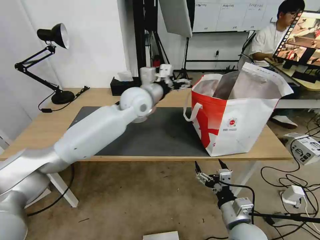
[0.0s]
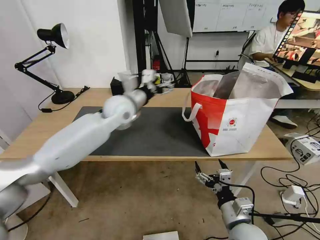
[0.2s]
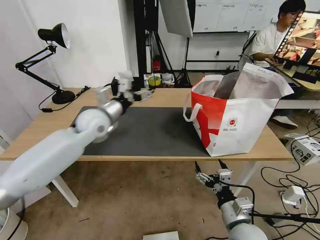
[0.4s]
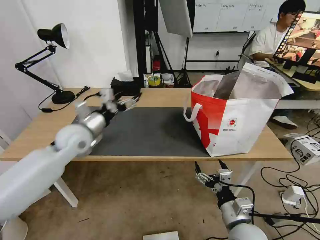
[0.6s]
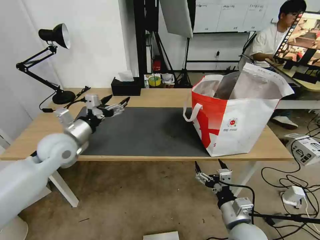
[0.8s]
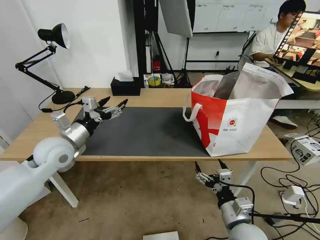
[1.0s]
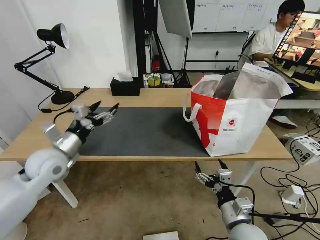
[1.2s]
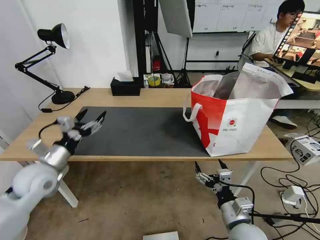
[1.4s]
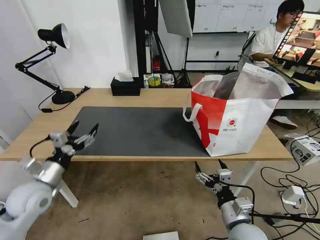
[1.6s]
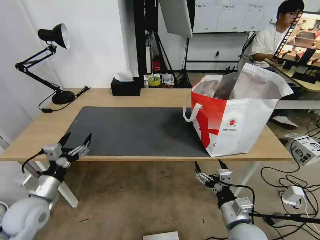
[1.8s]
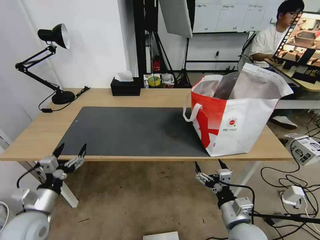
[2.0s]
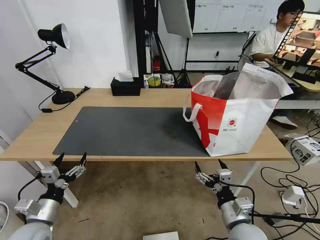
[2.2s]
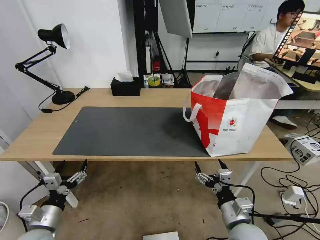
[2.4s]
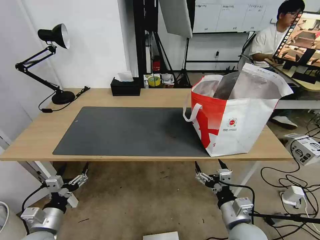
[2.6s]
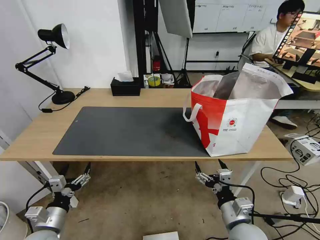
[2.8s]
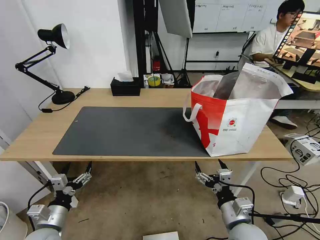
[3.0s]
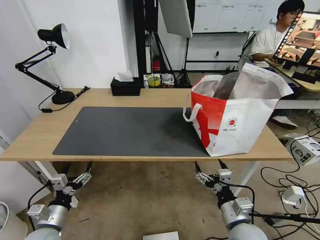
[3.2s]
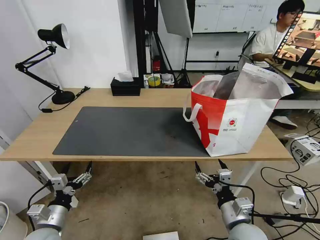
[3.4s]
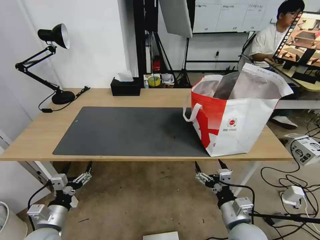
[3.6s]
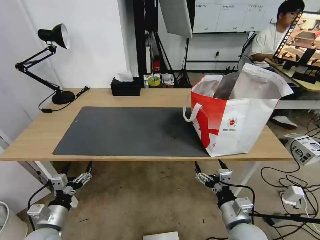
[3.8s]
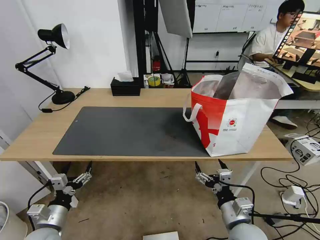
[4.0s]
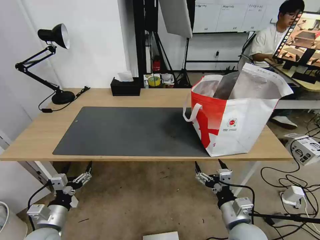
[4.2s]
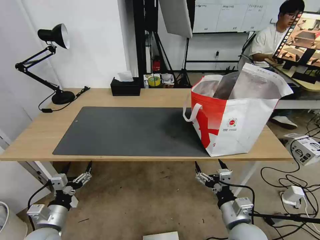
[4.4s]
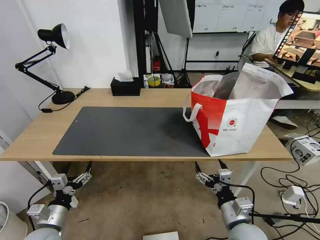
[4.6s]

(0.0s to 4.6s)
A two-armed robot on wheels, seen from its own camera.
Task of the whole recording: Pick up the trash from the table and place it into the takeout bag.
0.0s - 1.6s: The left gripper heads to the left, backward and downward, covering roughly 40 cm.
1.6s - 3.0s: The left gripper heads downward and backward, covering approximately 15 cm.
3.0s - 4.6s: Neither gripper changes place.

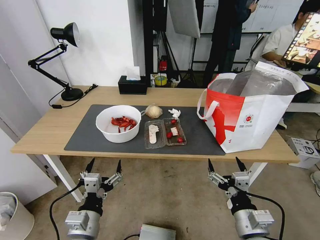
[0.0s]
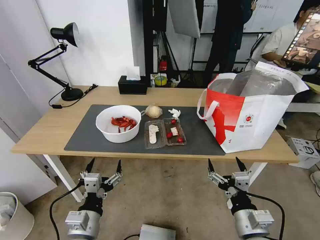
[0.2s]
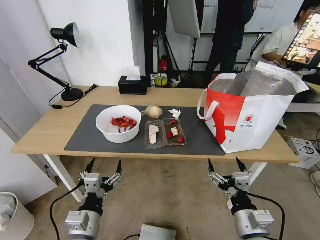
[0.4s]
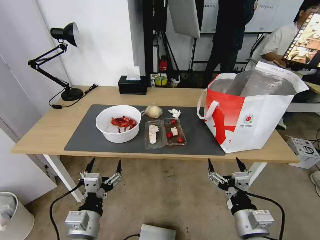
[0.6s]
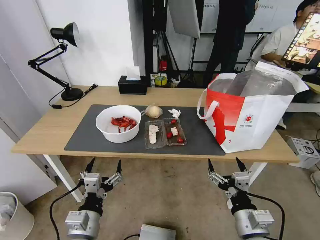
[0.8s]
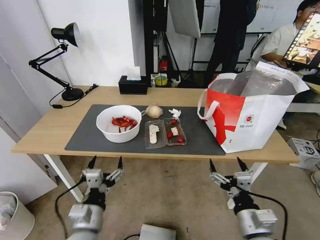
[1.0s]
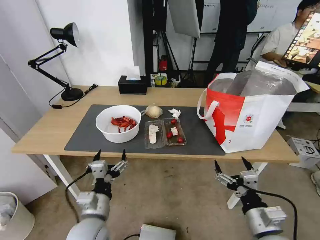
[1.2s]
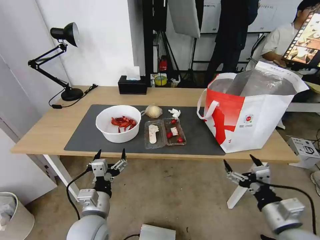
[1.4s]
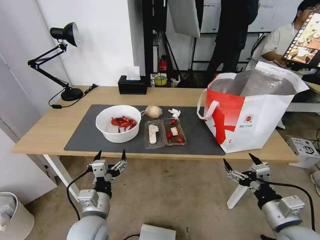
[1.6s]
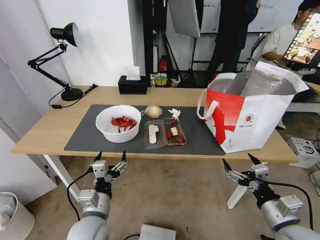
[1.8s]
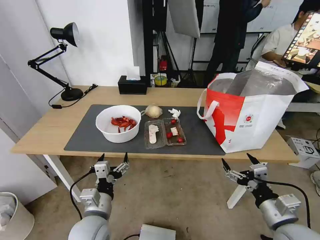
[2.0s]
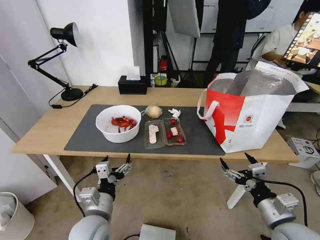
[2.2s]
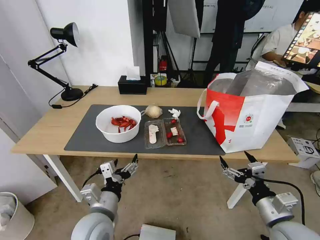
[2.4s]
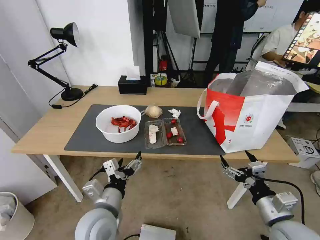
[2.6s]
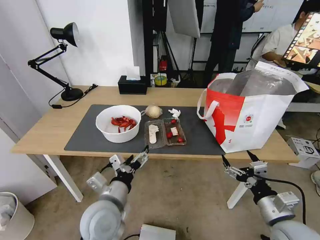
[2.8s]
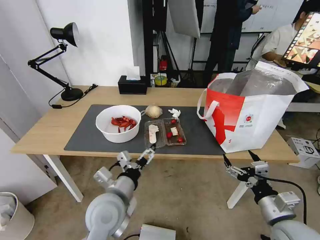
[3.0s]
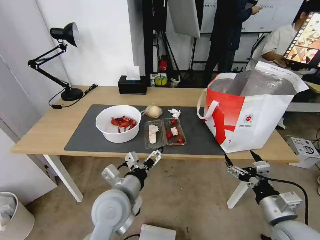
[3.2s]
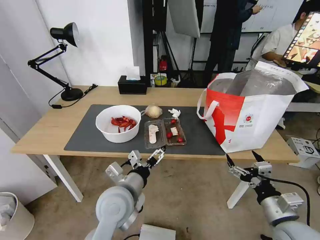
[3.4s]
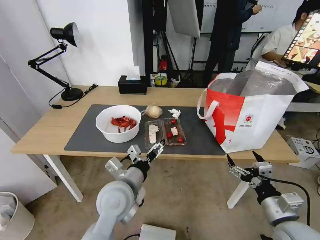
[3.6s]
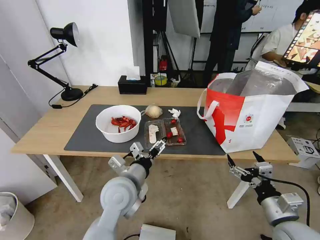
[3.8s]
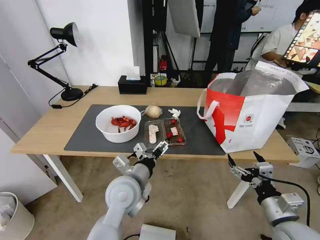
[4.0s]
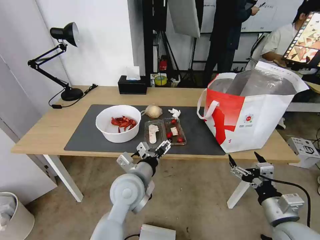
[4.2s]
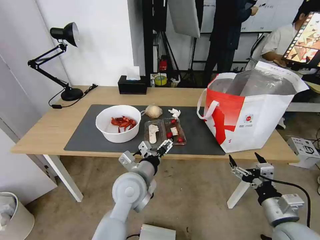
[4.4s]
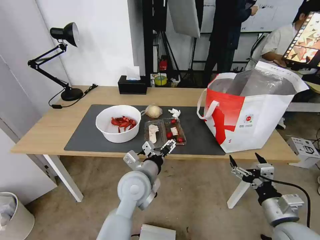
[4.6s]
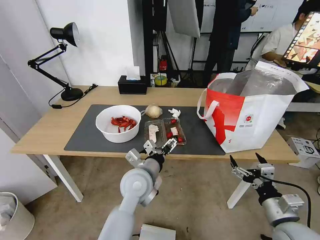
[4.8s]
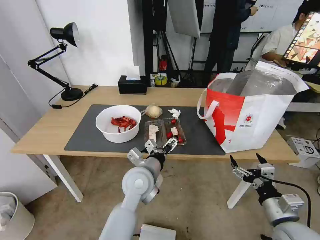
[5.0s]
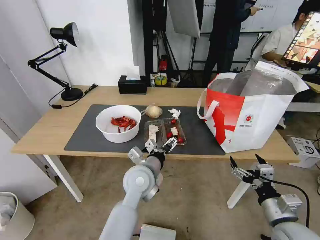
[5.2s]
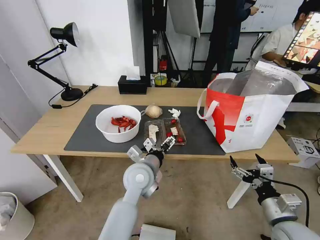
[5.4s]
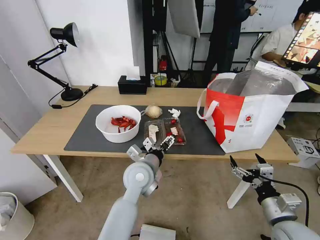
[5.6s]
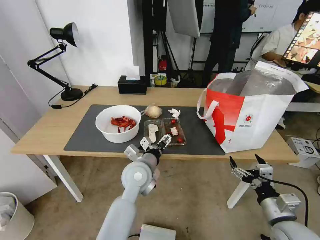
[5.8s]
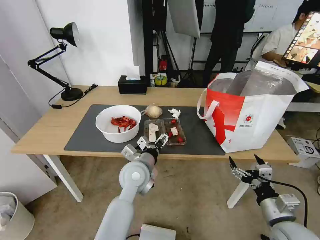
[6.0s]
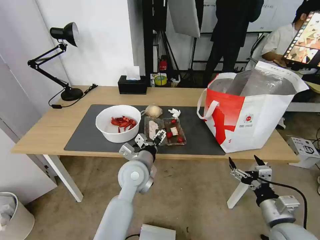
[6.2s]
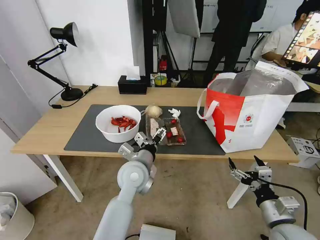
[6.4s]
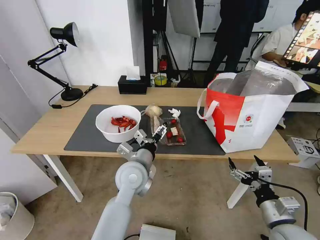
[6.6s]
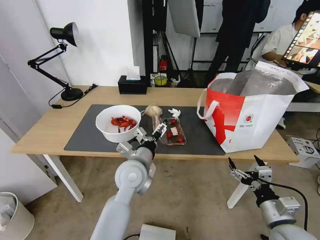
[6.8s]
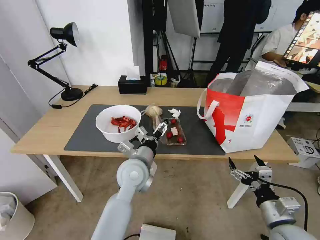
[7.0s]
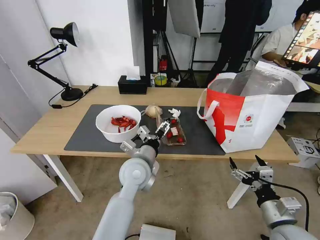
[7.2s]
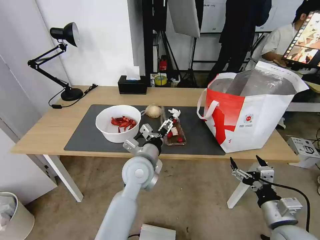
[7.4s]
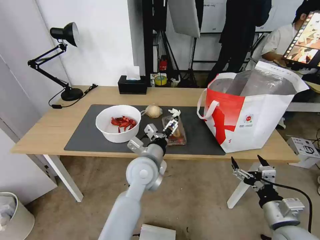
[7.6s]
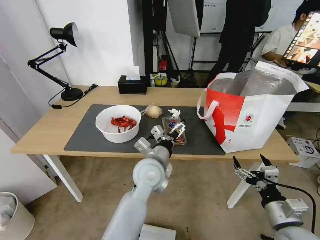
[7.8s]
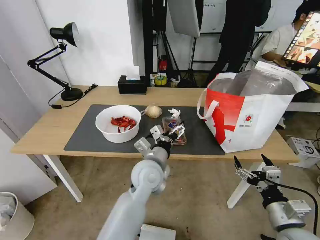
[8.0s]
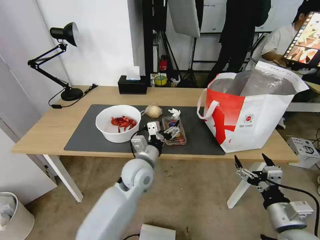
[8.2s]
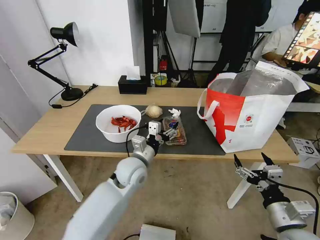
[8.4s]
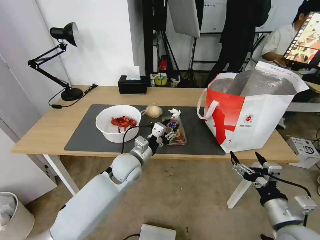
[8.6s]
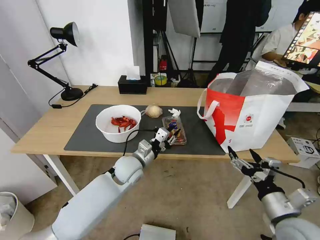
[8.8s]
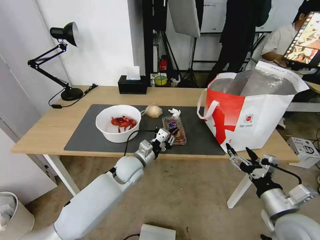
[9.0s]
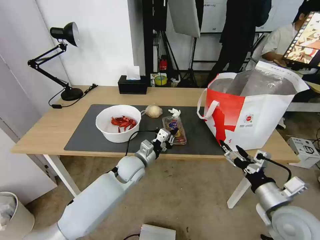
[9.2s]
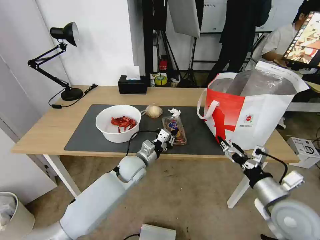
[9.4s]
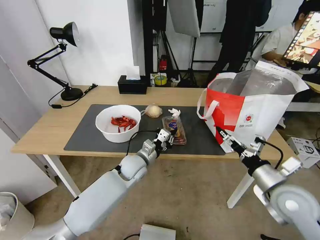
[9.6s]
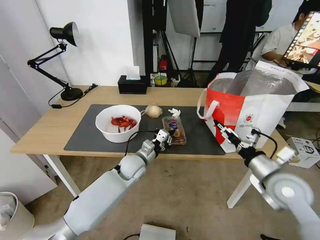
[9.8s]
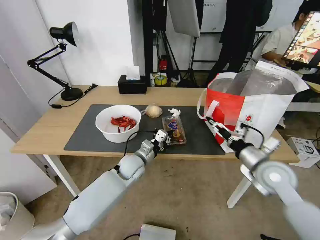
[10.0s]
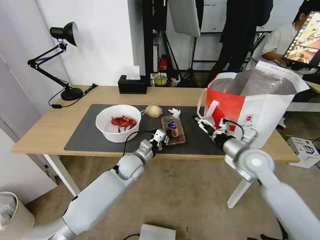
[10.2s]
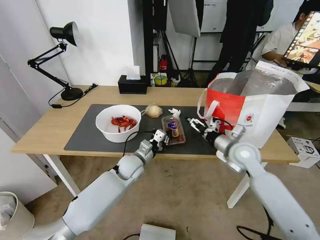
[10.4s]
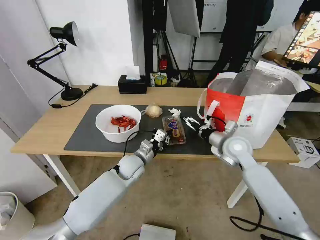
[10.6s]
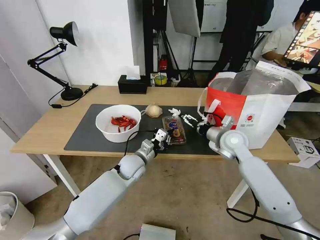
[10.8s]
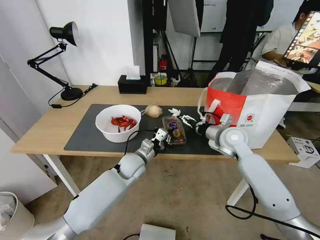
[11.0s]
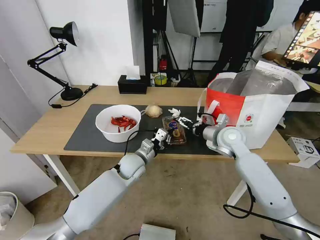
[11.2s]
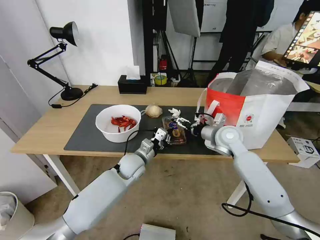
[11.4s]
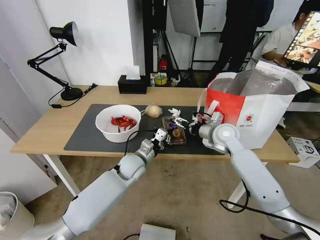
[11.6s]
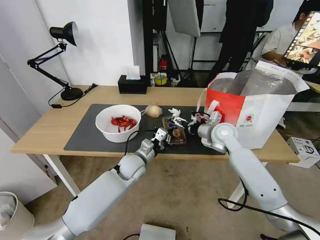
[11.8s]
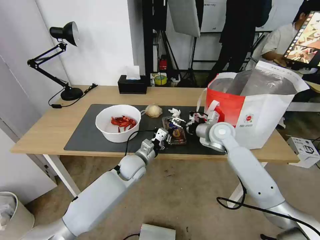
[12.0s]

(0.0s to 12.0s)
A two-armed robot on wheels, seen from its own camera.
Task of the whole recording: Pick up the trash from the table and place it into the takeout bag.
1.6s - 3.0s: The left gripper moves upward, roughly 5 cm.
3.0s - 4.4s: The left gripper moves forward and to the right, roughly 10 cm.
4.4s - 7.6s: The grippers move only a little.
7.6s - 9.0s: The left gripper goes approximately 10 cm downward, forward and to the left, and closes.
9.0s - 10.4s: The right gripper heads forward, covering roughly 20 cm.
10.4s - 12.0s: The right gripper heads forward and to the left, covering approximately 10 cm.

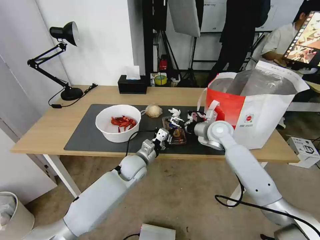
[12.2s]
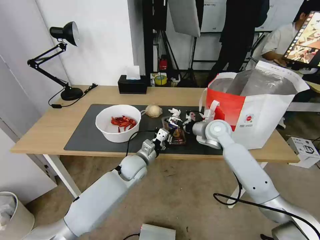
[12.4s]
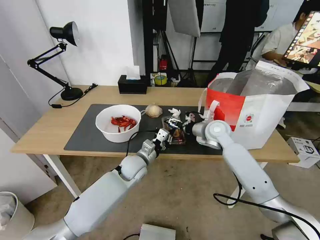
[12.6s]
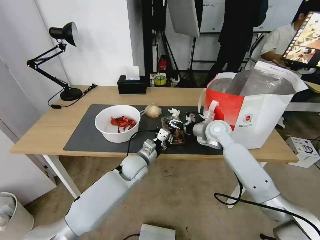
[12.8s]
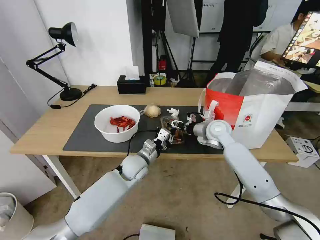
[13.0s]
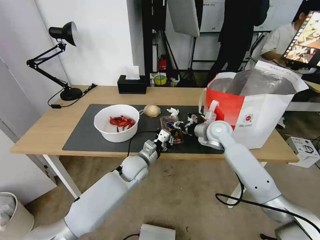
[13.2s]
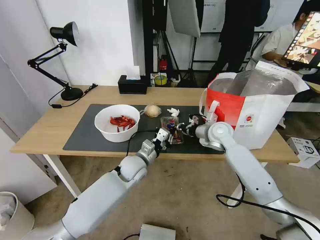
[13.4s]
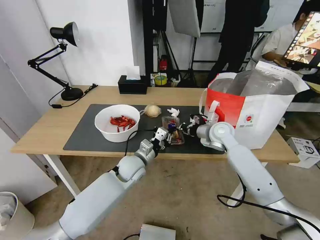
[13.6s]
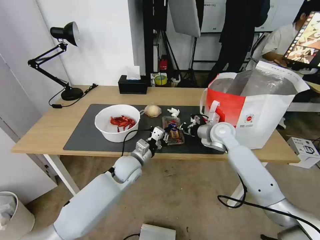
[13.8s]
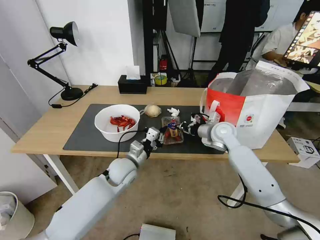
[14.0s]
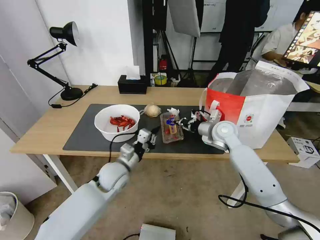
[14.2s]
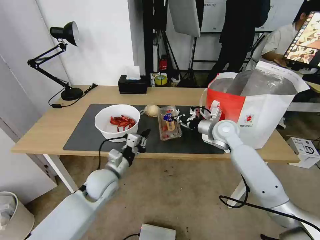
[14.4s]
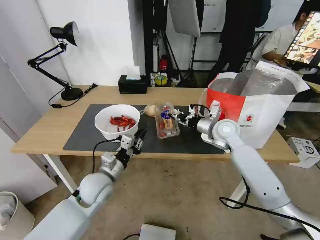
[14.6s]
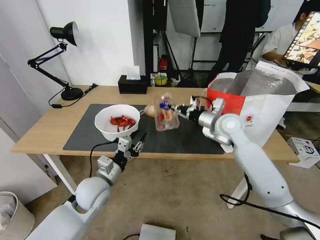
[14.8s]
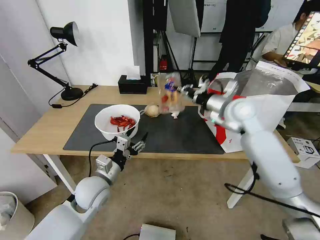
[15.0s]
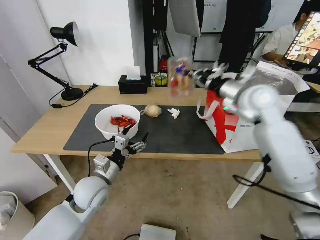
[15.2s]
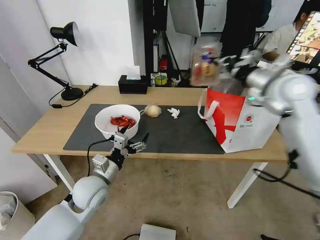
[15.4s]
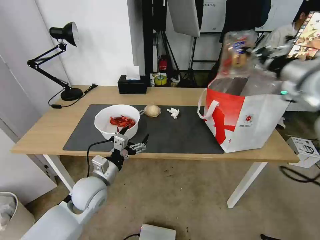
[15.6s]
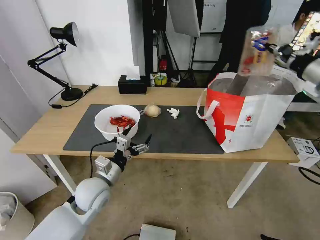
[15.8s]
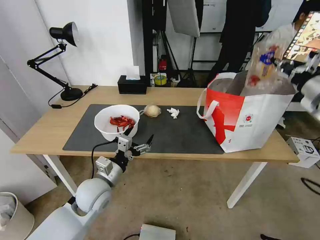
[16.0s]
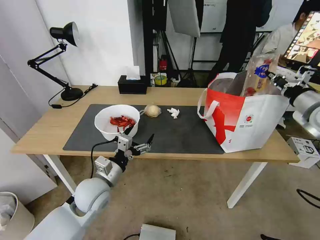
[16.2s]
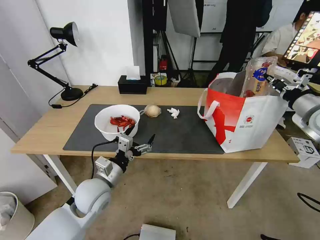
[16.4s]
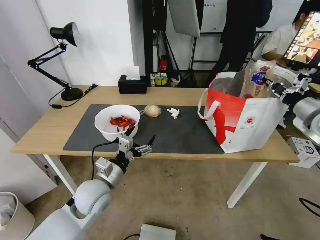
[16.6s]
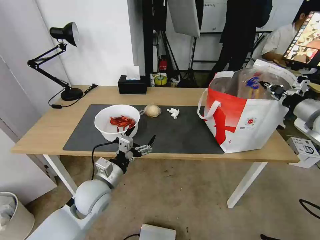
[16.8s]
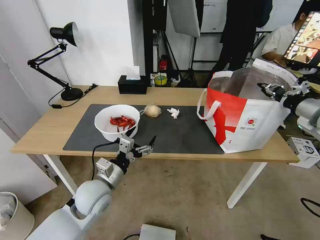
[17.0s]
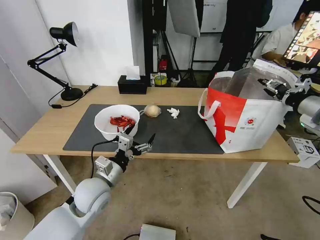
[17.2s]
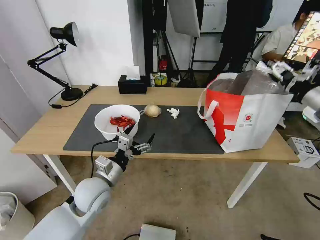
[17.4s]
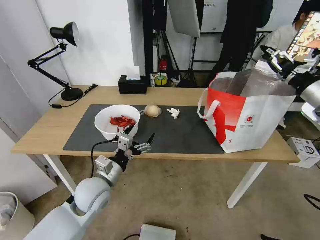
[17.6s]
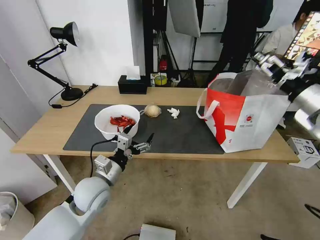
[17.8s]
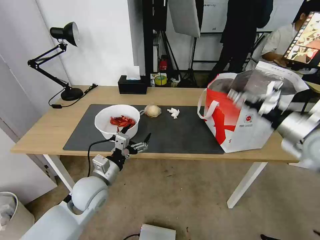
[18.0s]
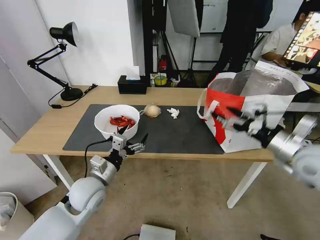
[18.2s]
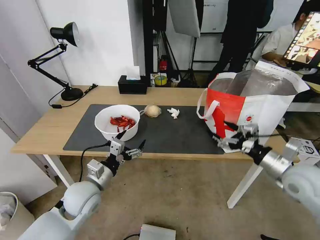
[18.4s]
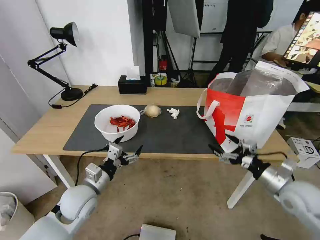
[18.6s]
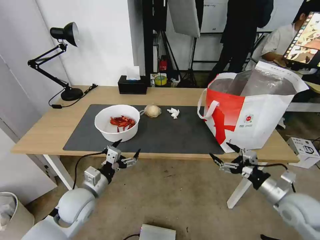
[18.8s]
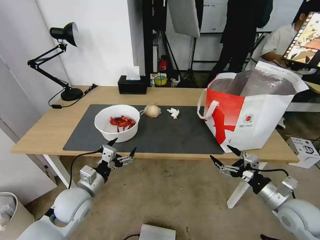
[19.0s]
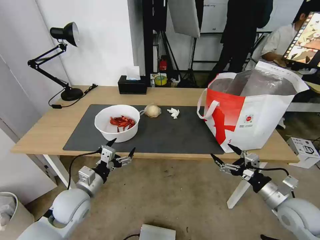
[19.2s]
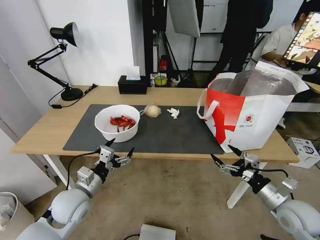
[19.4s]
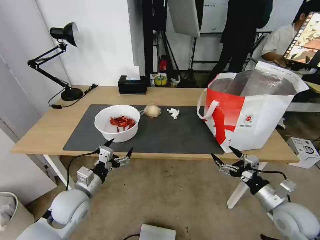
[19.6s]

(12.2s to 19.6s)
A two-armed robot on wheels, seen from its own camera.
Task of the whole recording: Pick up the trash from the table and place it into the takeout bag.
12.2s - 13.6s: The right gripper closes.
13.6s - 15.2s: The right gripper heads upward, covering about 15 cm. Meanwhile the left gripper heads to the left and backward, covering approximately 15 cm, and opens.
15.2s - 16.6s: The right gripper travels to the right by some 20 cm.
16.6s - 18.2s: The right gripper goes about 15 cm backward, to the left and downward, and opens.
18.2s - 19.6s: The right gripper moves downward and backward, about 20 cm. The left gripper ends up roughly 5 cm from where it was.
